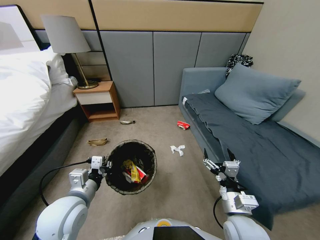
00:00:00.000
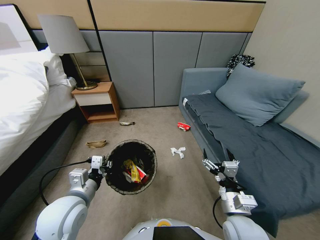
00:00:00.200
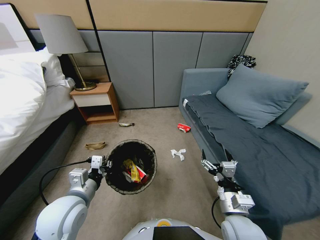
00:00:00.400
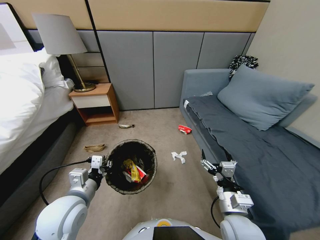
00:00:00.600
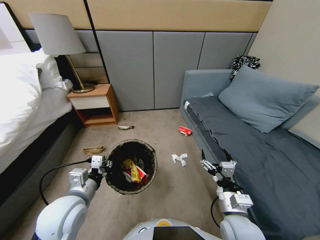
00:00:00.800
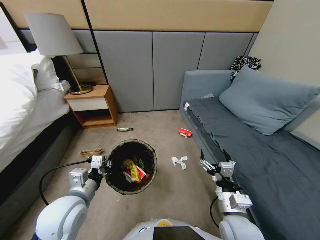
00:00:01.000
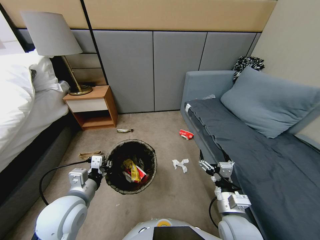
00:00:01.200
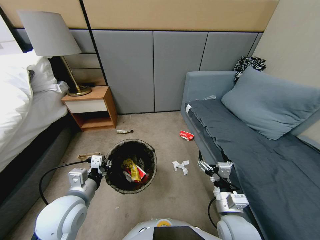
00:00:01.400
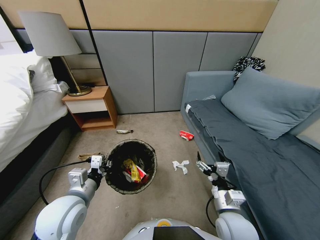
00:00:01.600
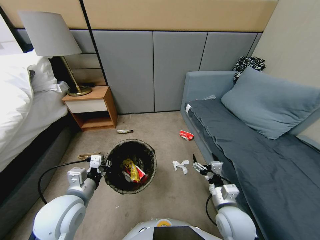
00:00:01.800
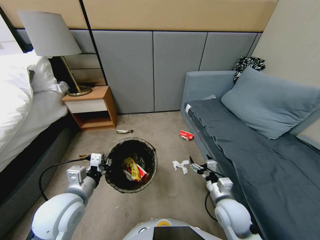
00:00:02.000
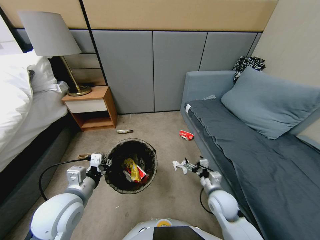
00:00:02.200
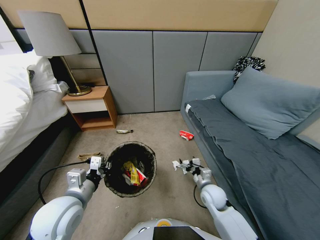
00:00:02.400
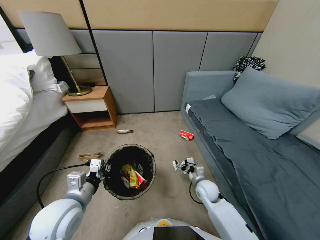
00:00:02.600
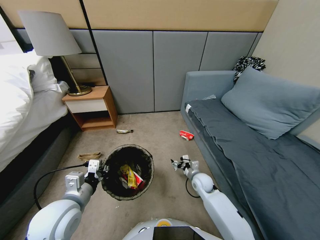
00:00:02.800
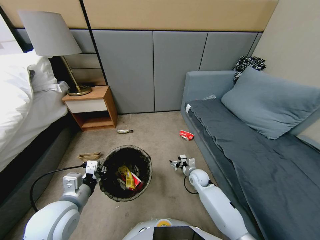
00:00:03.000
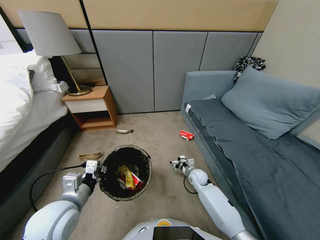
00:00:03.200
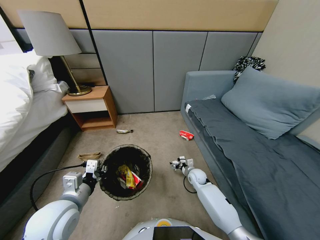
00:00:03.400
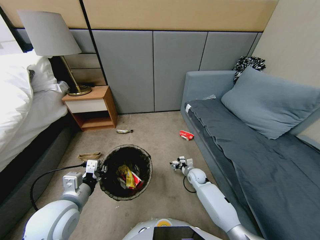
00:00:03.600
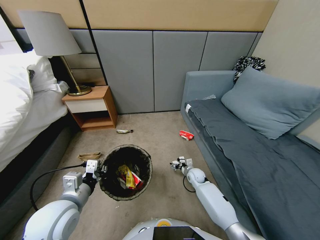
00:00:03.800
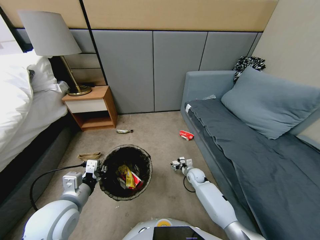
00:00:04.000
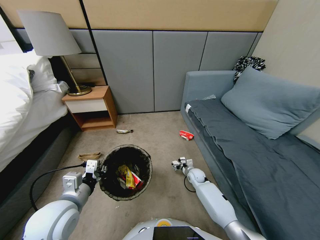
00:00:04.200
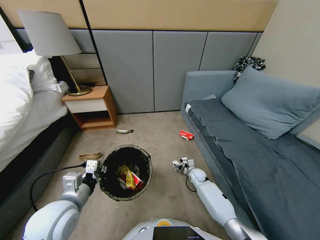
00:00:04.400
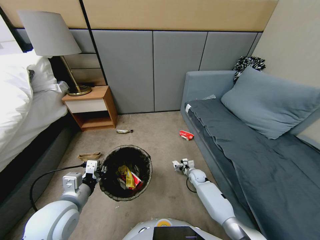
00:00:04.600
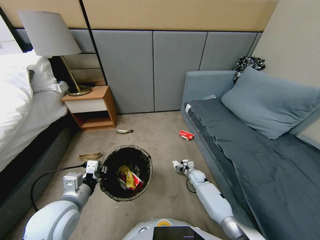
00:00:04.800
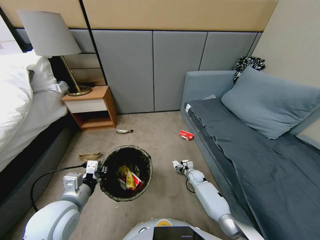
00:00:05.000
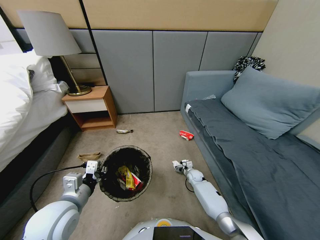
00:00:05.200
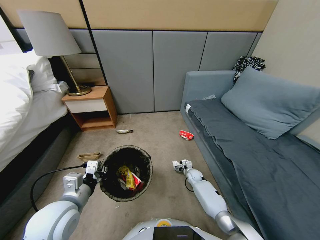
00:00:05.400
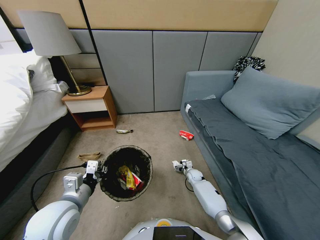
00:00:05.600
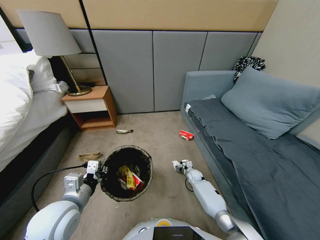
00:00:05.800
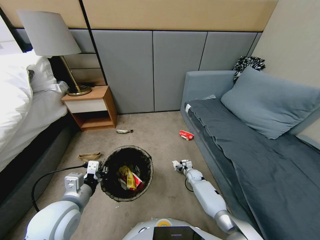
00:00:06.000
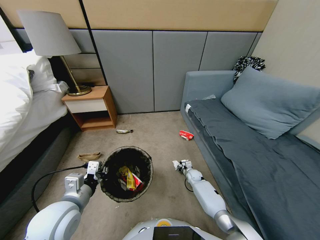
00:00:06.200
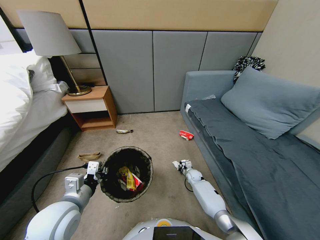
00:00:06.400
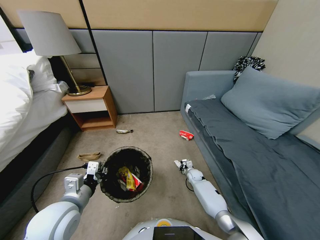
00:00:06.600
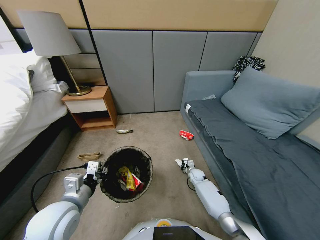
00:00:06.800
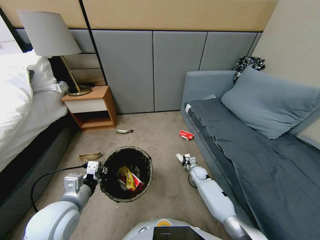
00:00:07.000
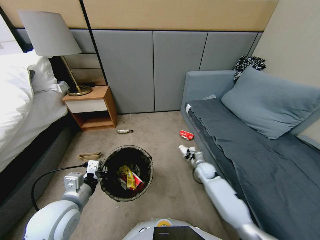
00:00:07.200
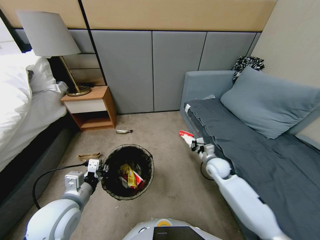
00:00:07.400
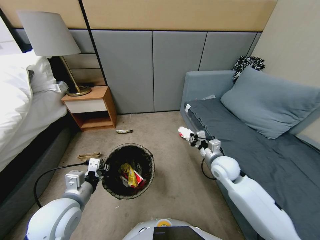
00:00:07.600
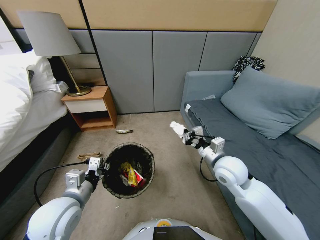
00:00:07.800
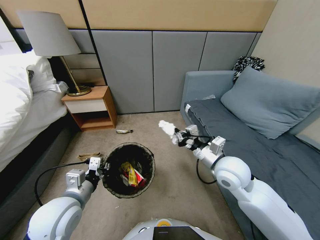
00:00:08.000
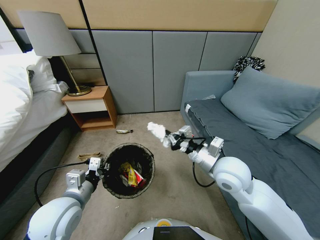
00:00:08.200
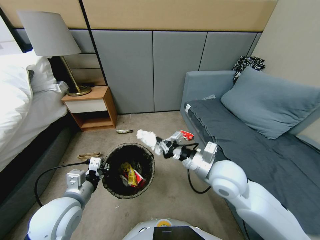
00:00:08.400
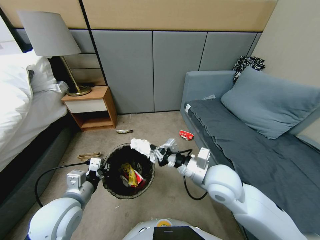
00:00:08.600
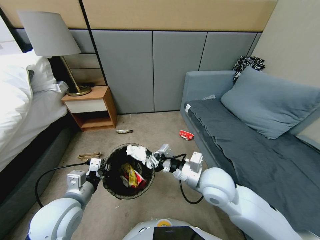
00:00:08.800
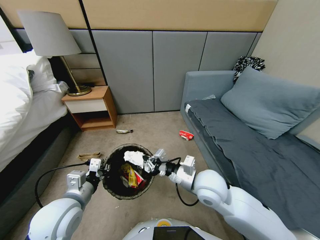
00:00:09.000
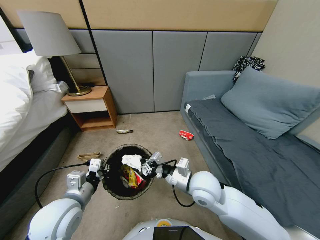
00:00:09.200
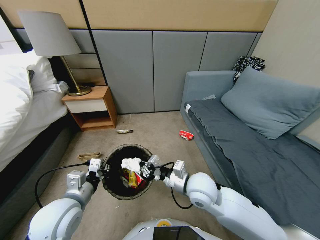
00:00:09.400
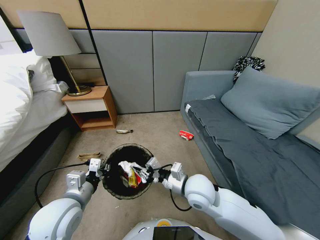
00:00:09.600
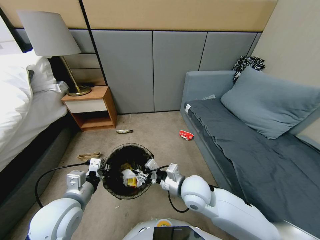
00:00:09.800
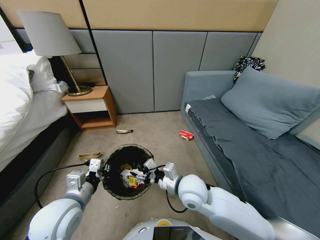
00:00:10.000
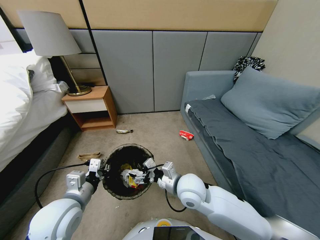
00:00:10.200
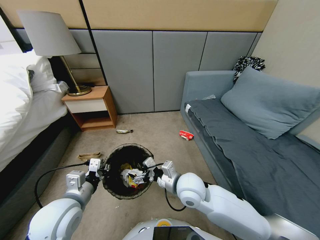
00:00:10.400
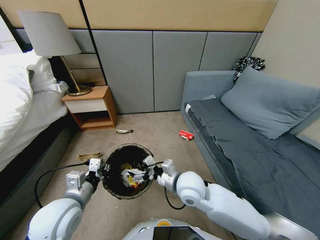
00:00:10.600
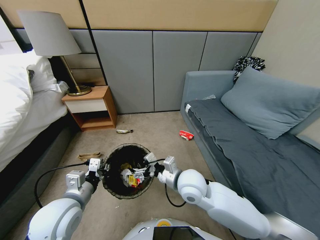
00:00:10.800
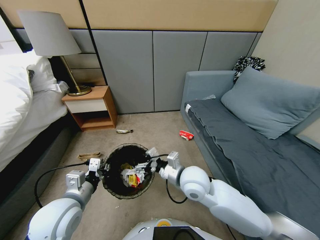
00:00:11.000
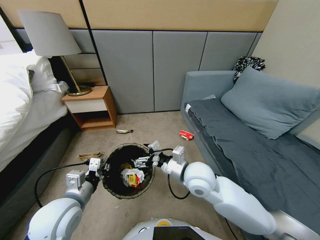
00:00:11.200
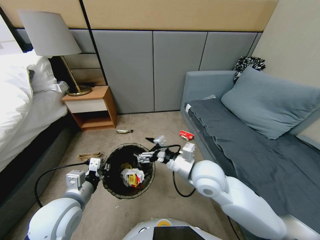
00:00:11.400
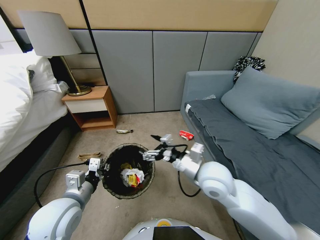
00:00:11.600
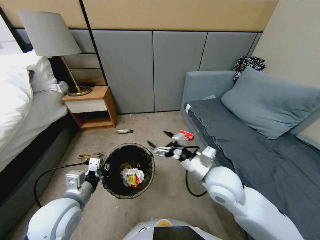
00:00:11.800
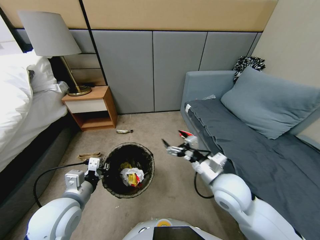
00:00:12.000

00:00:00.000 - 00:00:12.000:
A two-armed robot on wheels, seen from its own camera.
Task of the whole recording: Pick up the trash bin, then pick up the garbage from the floor and place it into the trash bin.
00:00:01.600 - 00:00:03.000: The right gripper goes roughly 25 cm forward and downward.
00:00:03.000 - 00:00:04.400: The right gripper is displaced downward by some 5 cm.
00:00:04.400 - 00:00:06.000: The right gripper closes.
00:00:06.000 - 00:00:07.600: The right gripper shifts roughly 35 cm upward, and closes.
00:00:07.600 - 00:00:09.000: The right gripper heads to the left and backward, covering some 10 cm.
00:00:09.000 - 00:00:10.400: The right gripper opens.
00:00:10.400 - 00:00:12.000: The right gripper heads to the right, covering some 10 cm.

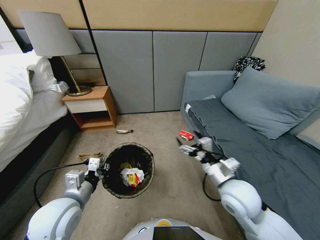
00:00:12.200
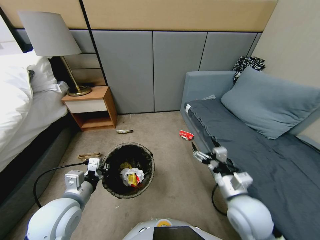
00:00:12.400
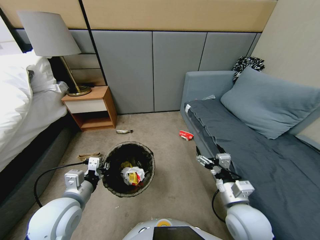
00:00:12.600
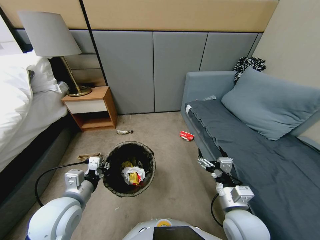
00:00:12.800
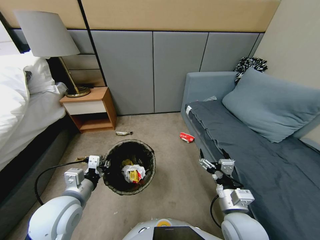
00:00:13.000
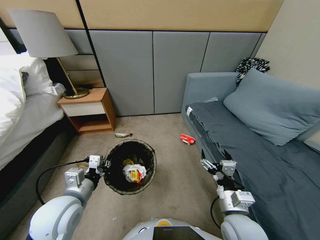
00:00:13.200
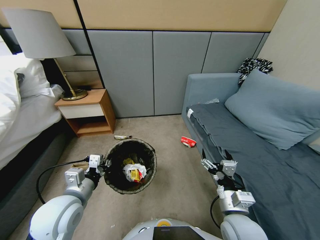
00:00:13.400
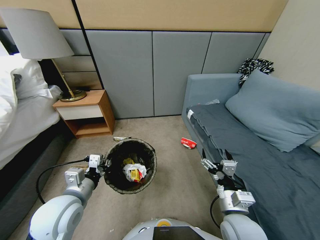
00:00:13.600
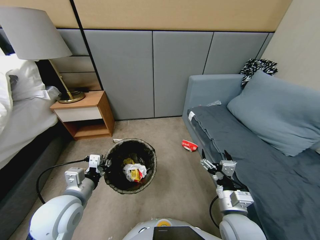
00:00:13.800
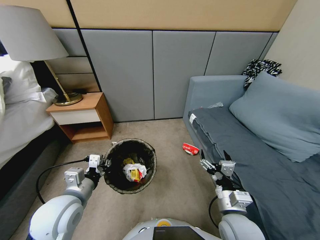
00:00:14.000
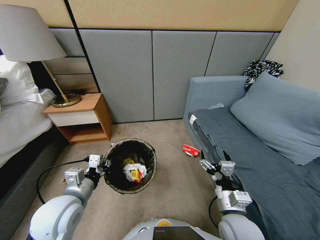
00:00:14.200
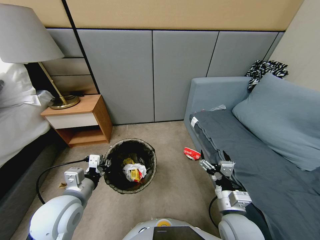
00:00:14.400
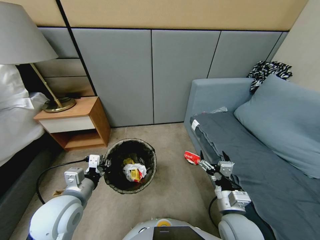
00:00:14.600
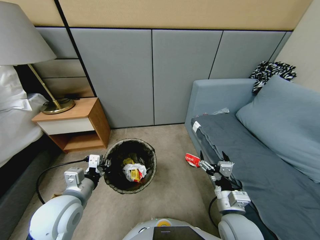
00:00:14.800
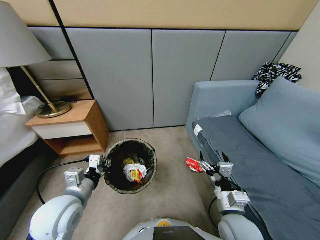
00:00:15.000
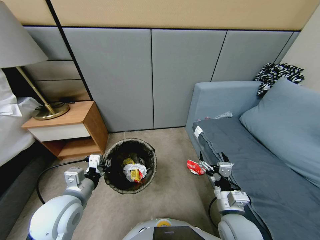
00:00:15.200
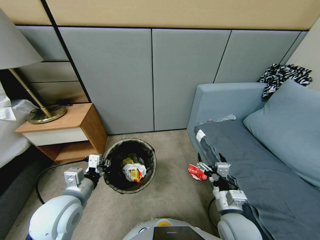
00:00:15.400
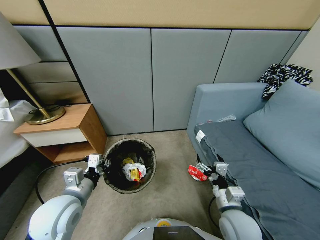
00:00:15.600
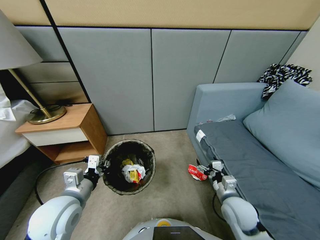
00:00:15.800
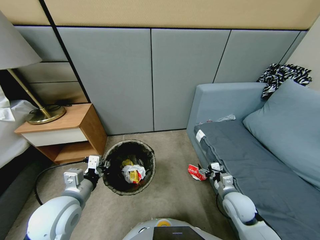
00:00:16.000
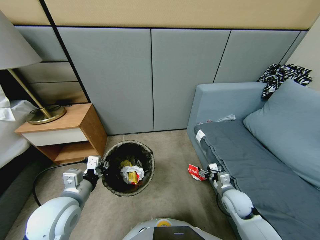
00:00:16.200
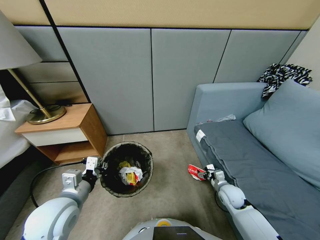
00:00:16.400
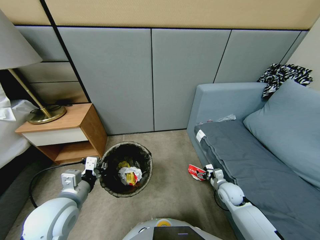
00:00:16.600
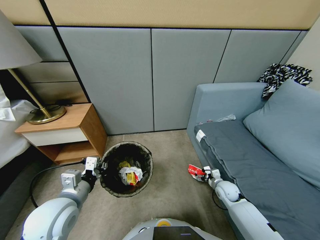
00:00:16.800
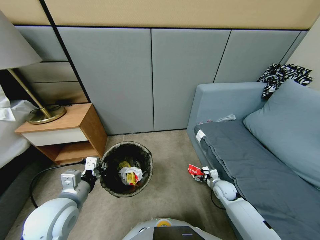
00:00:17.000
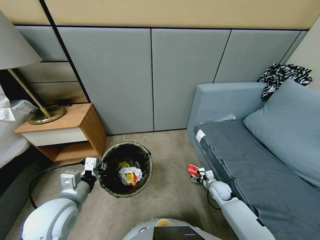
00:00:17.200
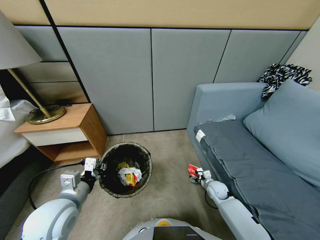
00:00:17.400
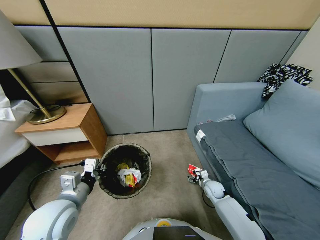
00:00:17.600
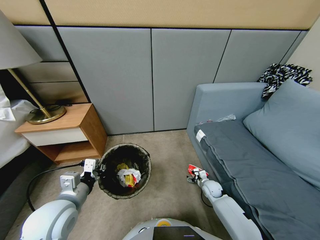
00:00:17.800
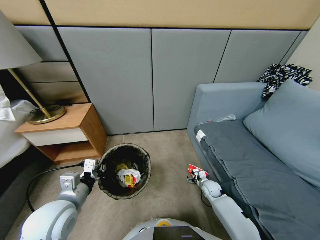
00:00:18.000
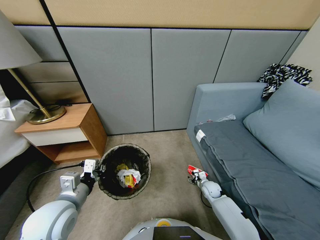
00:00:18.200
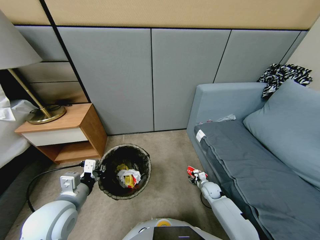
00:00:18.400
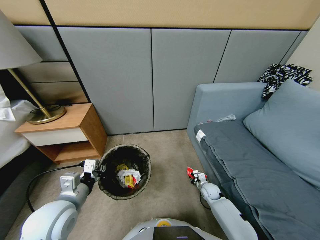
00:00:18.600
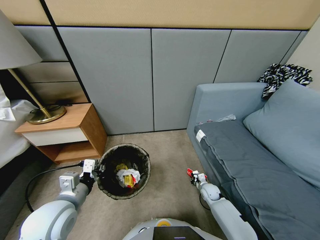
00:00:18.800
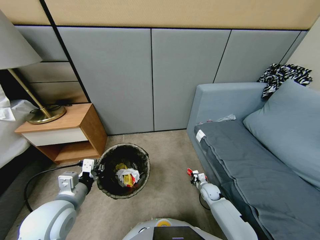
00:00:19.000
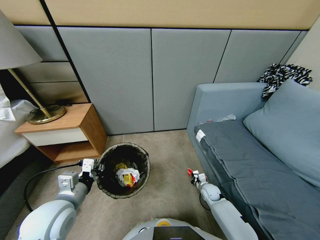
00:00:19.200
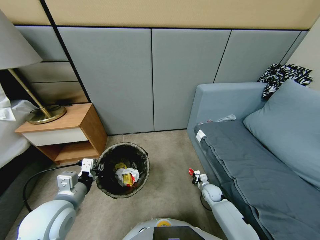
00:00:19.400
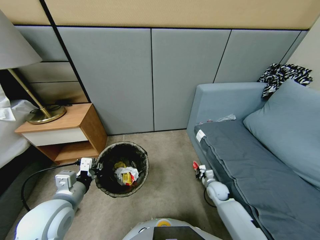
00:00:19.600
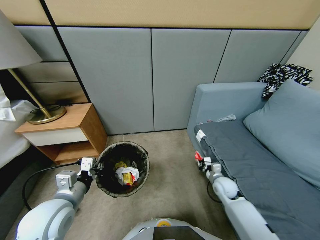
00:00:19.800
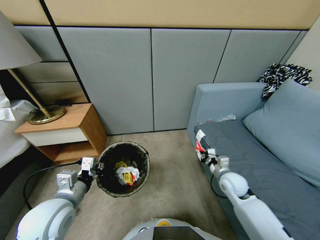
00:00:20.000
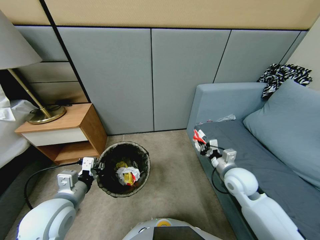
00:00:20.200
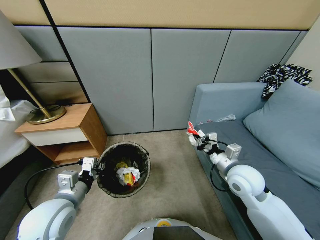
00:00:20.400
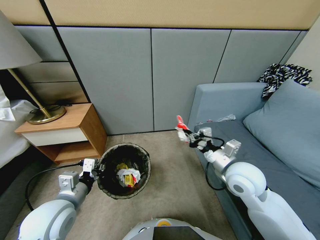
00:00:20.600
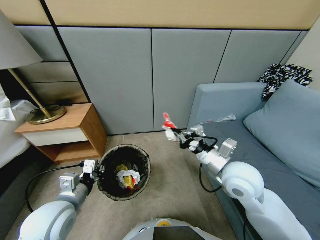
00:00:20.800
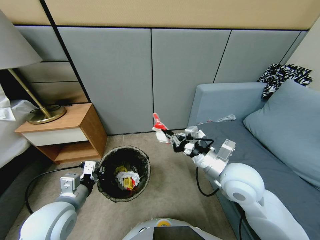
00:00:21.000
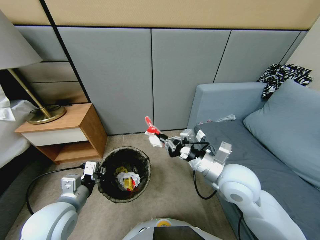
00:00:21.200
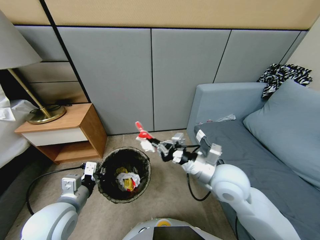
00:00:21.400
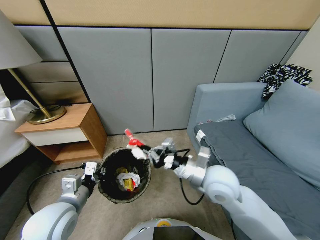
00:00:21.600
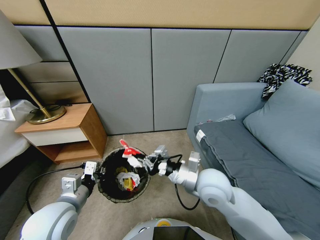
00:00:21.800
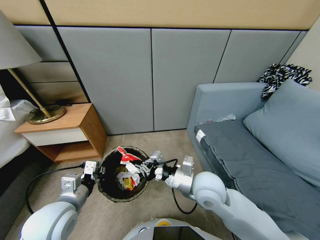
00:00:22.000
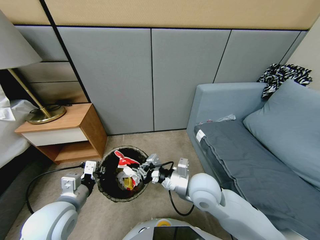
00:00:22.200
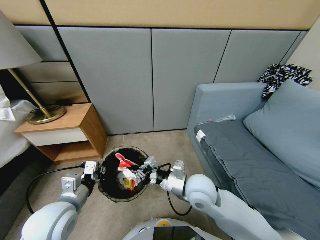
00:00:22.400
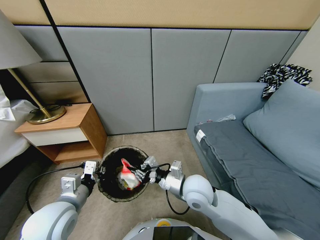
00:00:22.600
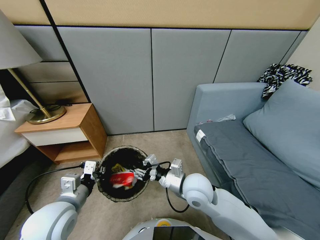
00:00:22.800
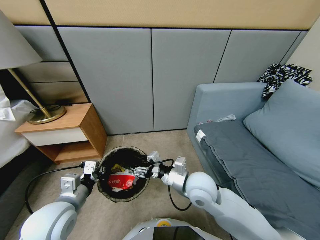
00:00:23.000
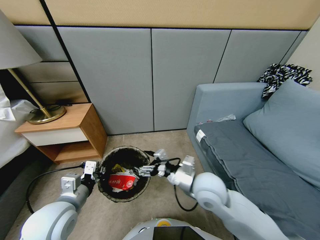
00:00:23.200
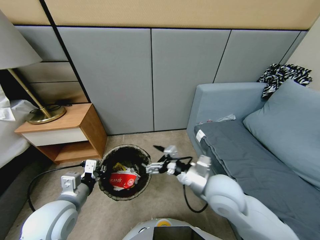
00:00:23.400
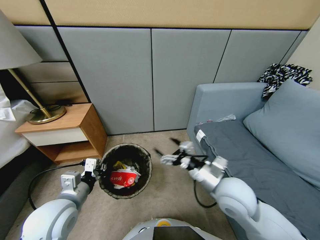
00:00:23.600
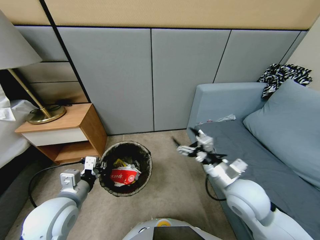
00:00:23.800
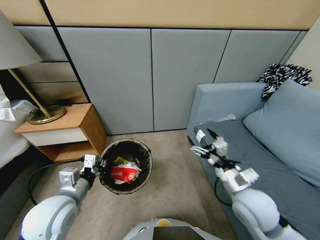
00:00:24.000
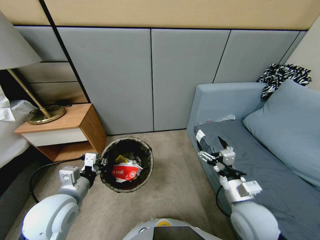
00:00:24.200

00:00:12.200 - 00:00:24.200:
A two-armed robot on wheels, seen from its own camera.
Task of the whole recording: Pick up the trash bin, then pick up the garbage from the floor and place it into the trash bin.
00:00:12.200 - 00:00:13.800: The right gripper goes about 5 cm backward.
00:00:15.200 - 00:00:16.600: The right gripper moves forward, downward and to the right, some 25 cm.
00:00:16.600 - 00:00:18.200: The right gripper is displaced downward by about 10 cm.
00:00:18.200 - 00:00:19.800: The right gripper is displaced upward by roughly 15 cm, and closes its fingers.
00:00:19.800 - 00:00:21.200: The right gripper shifts some 25 cm upward and to the left.
00:00:21.200 - 00:00:22.600: The right gripper goes some 10 cm to the left and downward, and opens.
00:00:22.600 - 00:00:24.200: The right gripper is displaced to the right and backward by approximately 15 cm, and opens.
